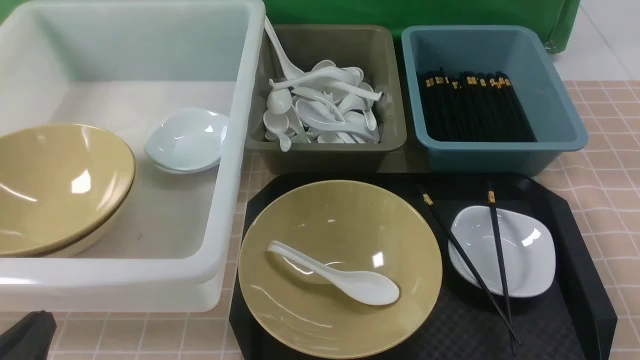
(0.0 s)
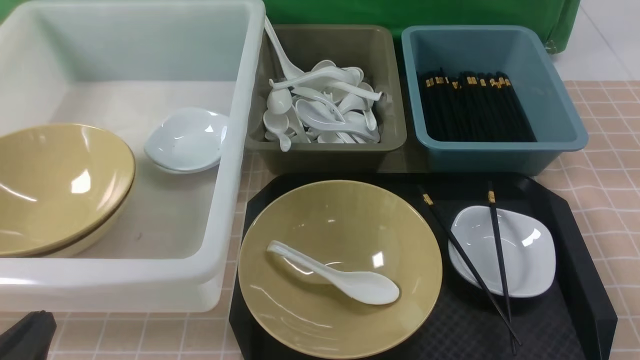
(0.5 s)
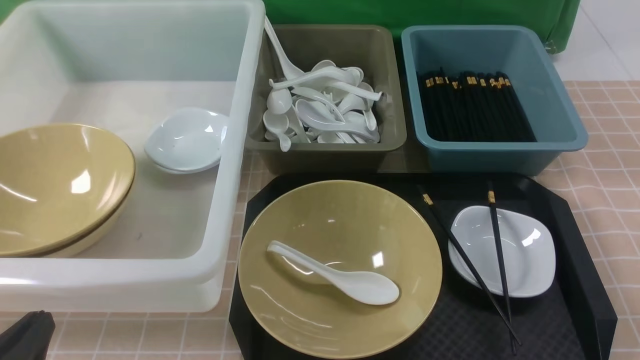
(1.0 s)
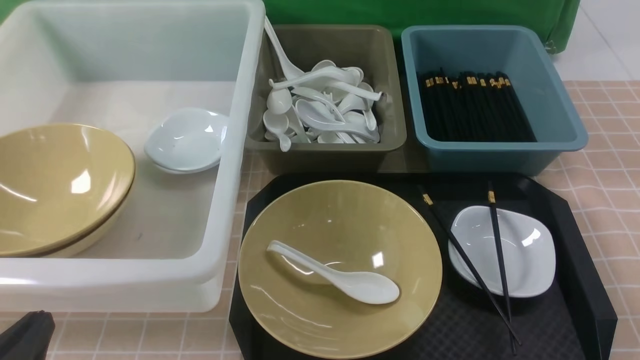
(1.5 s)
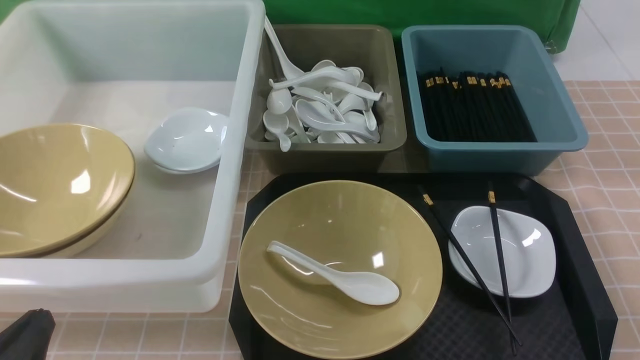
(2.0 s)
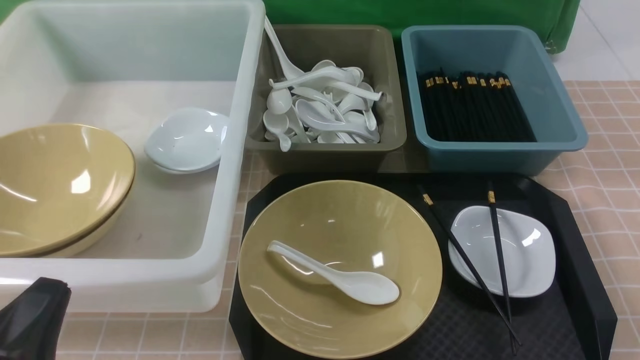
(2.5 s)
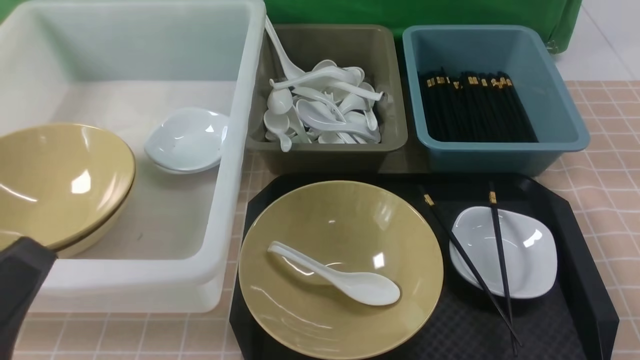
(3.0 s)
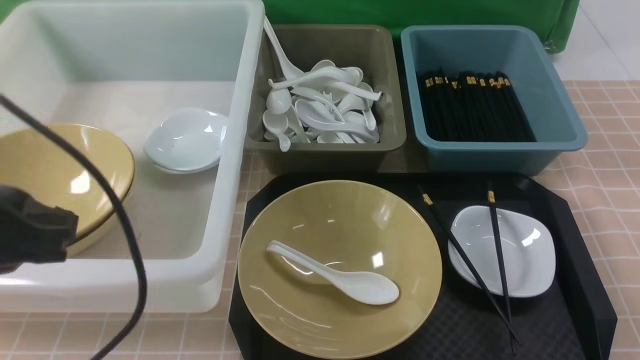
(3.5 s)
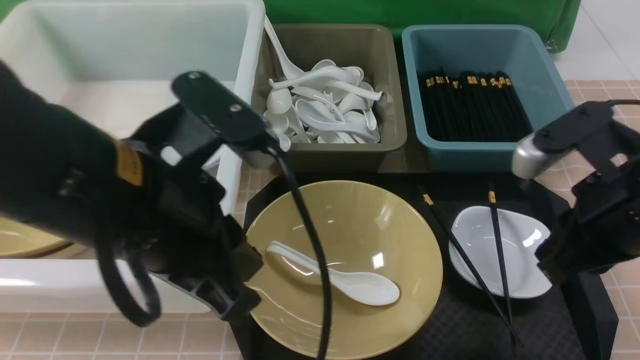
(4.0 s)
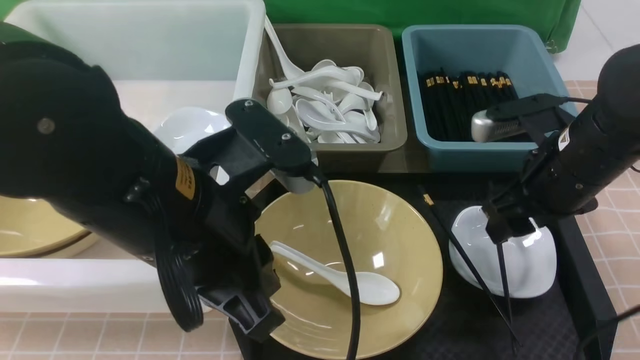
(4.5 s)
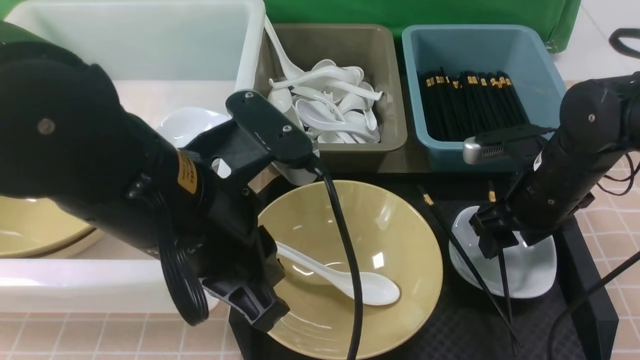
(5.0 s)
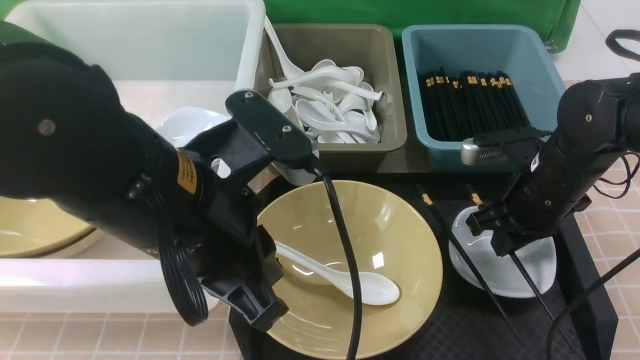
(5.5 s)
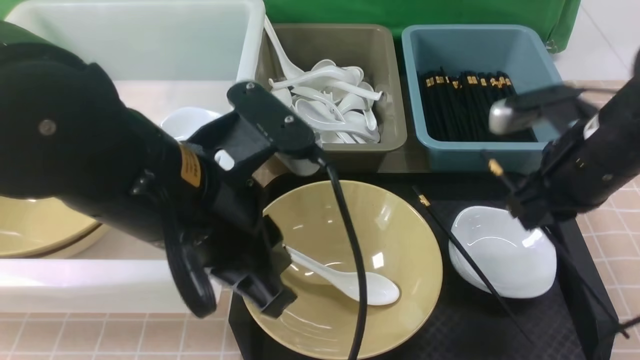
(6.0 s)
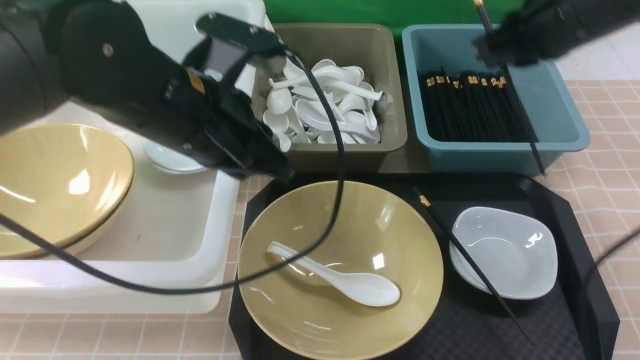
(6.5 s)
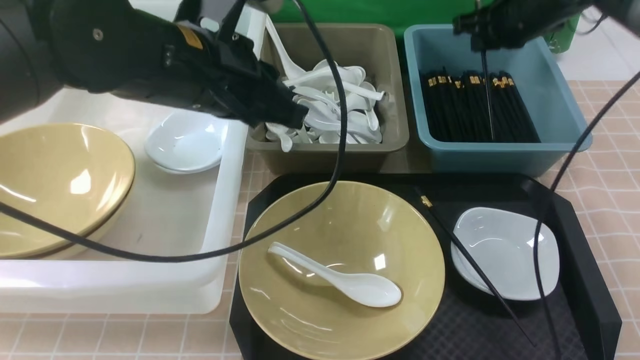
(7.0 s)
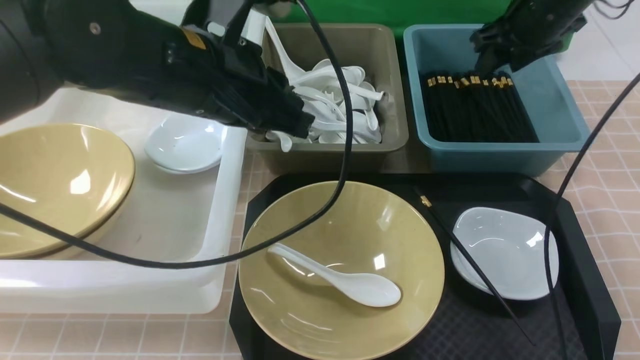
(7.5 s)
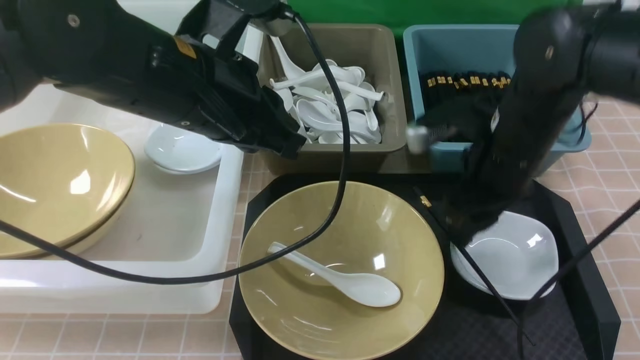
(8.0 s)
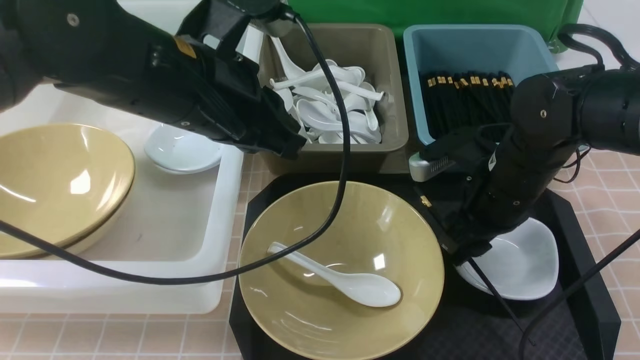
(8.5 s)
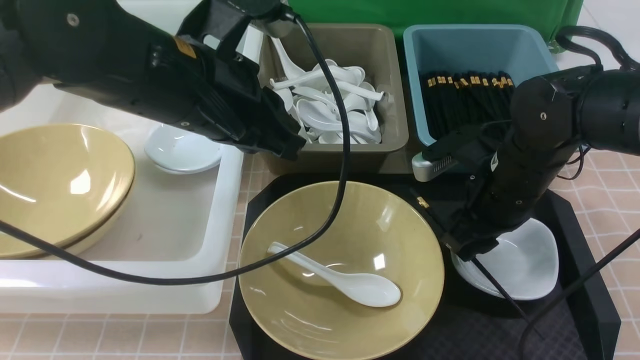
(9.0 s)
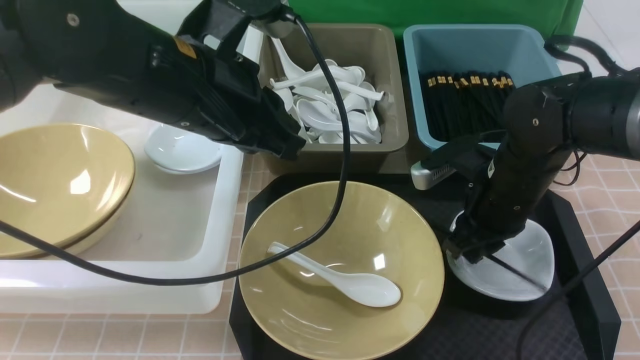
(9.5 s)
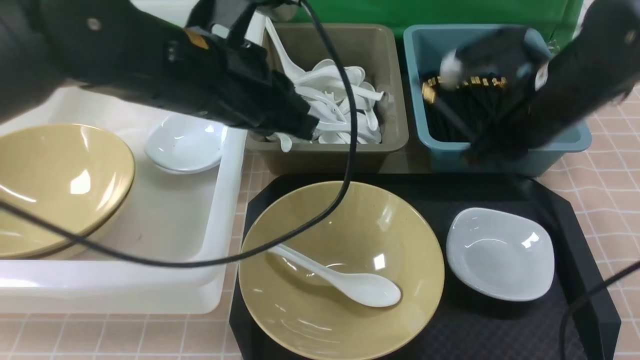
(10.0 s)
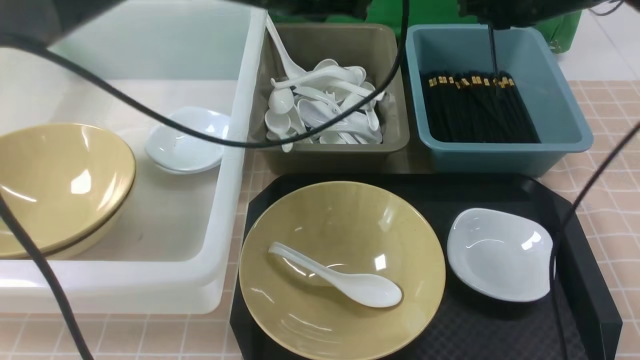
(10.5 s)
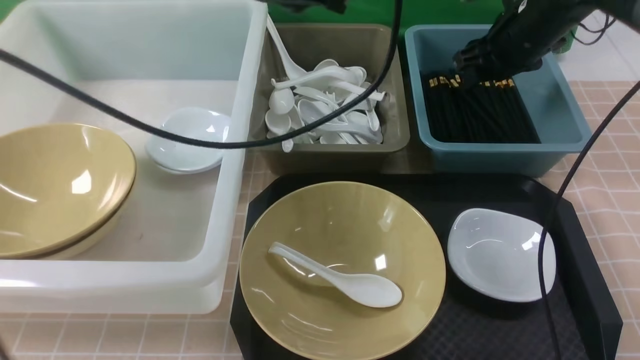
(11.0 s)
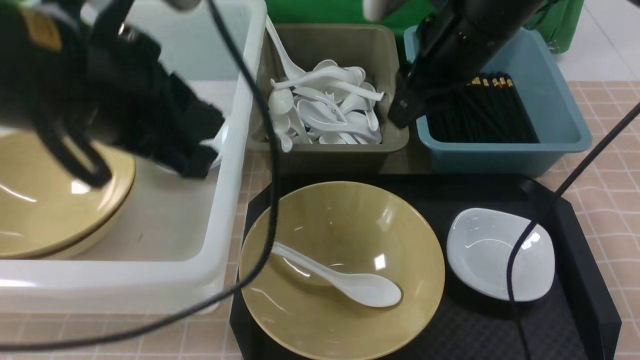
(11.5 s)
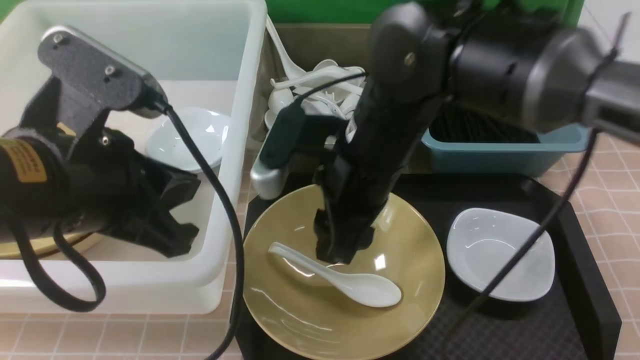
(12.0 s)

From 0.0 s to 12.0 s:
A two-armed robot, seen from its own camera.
Task of the whole recording: on brown table put chopsticks spoon bowls plates into blue grey white boxes.
Step, from 0.0 s to 5.5 s: use the right arm to grab a chopstick.
Step, from 6.0 s to 7.0 s: use the right arm to put a chopstick into the small storage box on the right.
Step, from 8.0 s to 9.5 s: use the right arm to grab a chopstick.
Step, from 10.0 s to 10.5 s: use the right arm to put a chopstick into the small storage box on the right.
From 2.0 s to 4.0 s: The left gripper heads upward, to the right and forward, covering some 25 cm. Meanwhile the right gripper goes roughly 20 cm forward, upward and to the left.
From 4.0 s to 6.0 s: The right gripper moves forward, approximately 5 cm, reaches roughly 10 cm downward, then returns, and opens, then closes once more.
From 6.0 s to 8.0 s: The left gripper shifts roughly 10 cm forward. Meanwhile the right gripper moves to the left, some 5 cm, reaches some 20 cm forward, then returns, and opens up.
From 8.0 s to 10.0 s: The right gripper travels upward by some 5 cm, and closes up.
From 10.0 s to 12.0 s: The left gripper is displaced backward and to the left by some 15 cm. Meanwhile the right gripper shifts about 15 cm to the left, and opens up.

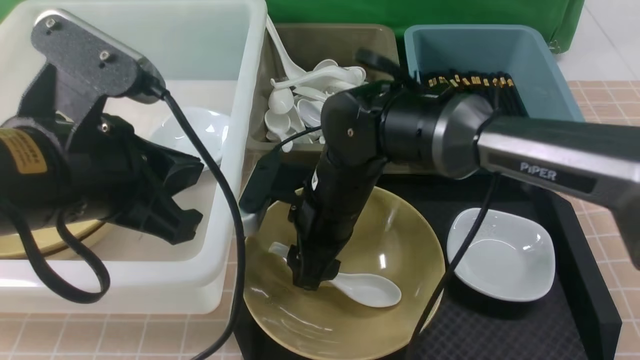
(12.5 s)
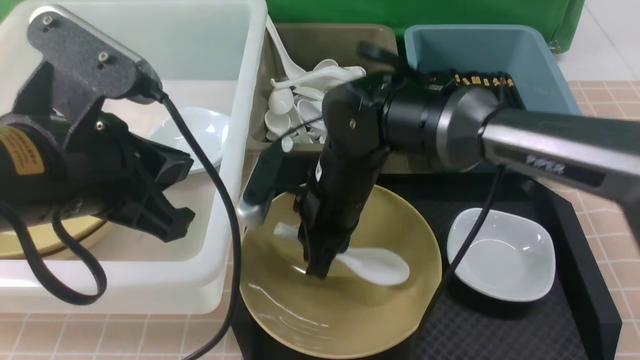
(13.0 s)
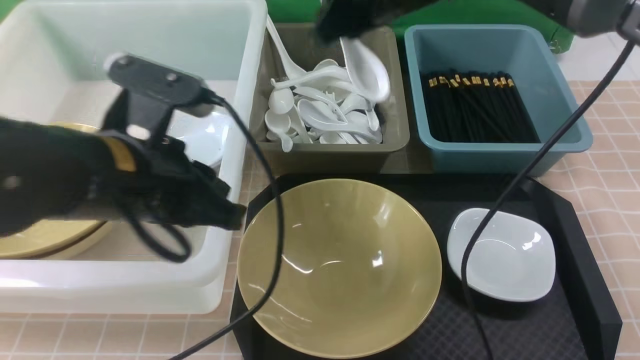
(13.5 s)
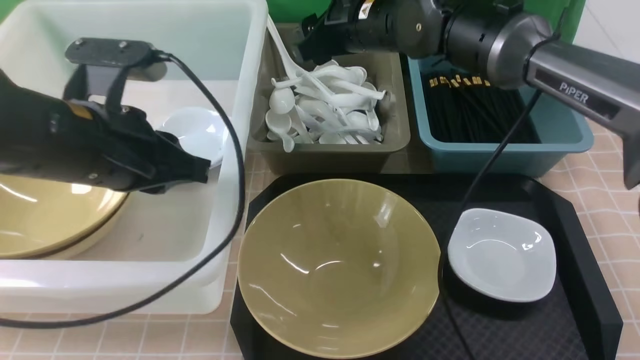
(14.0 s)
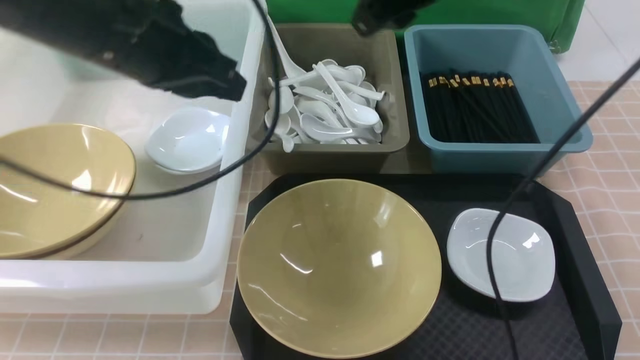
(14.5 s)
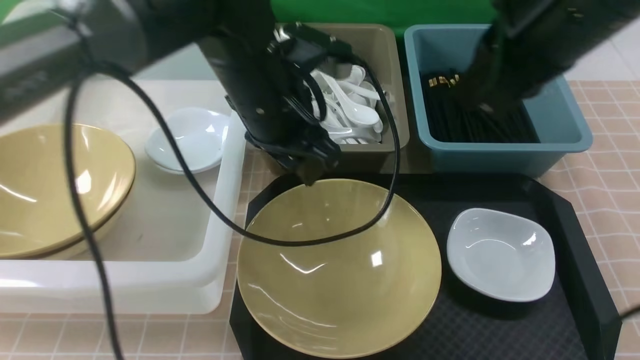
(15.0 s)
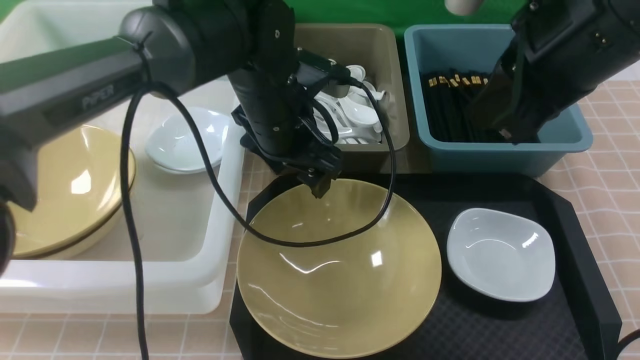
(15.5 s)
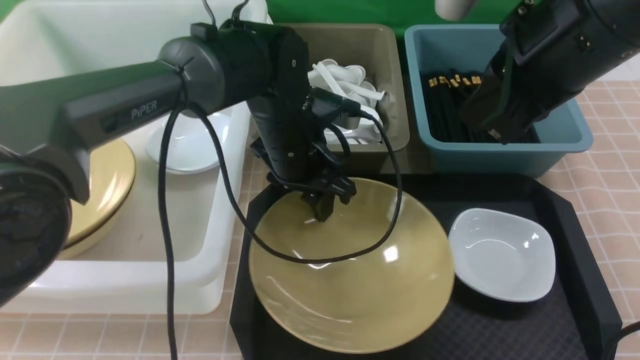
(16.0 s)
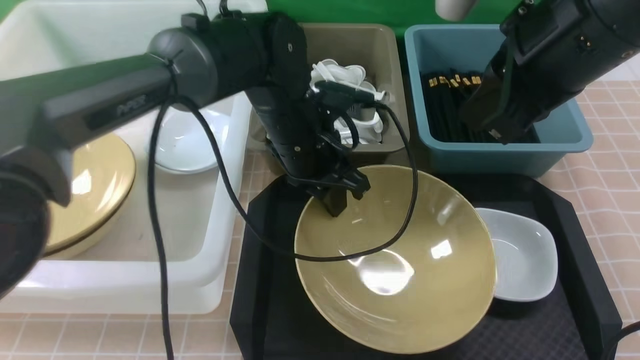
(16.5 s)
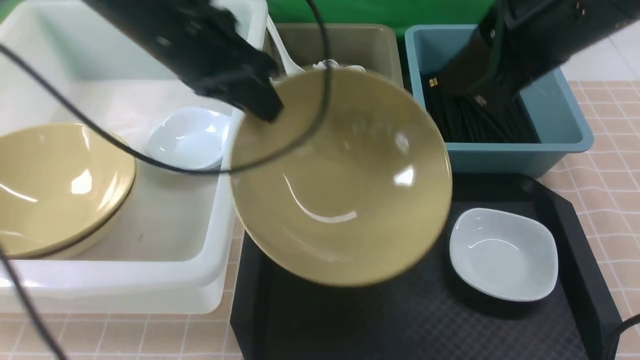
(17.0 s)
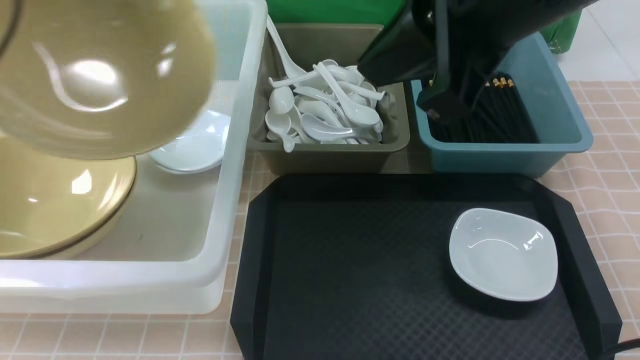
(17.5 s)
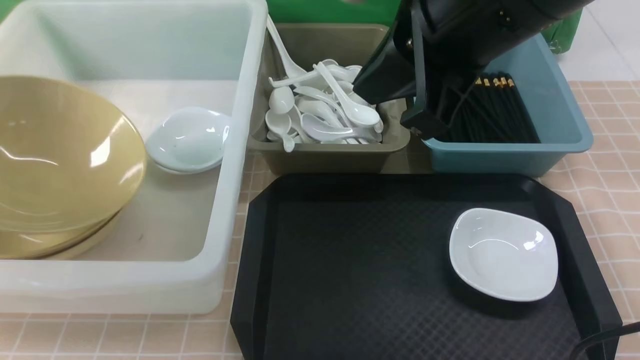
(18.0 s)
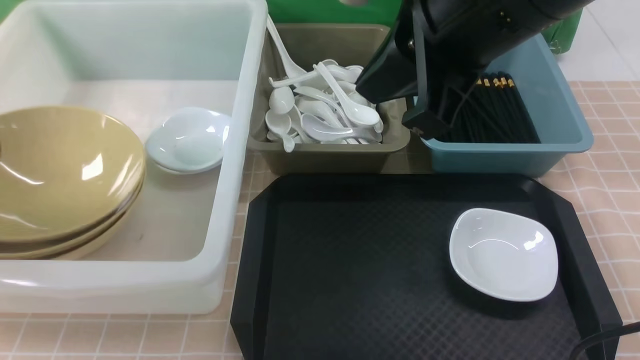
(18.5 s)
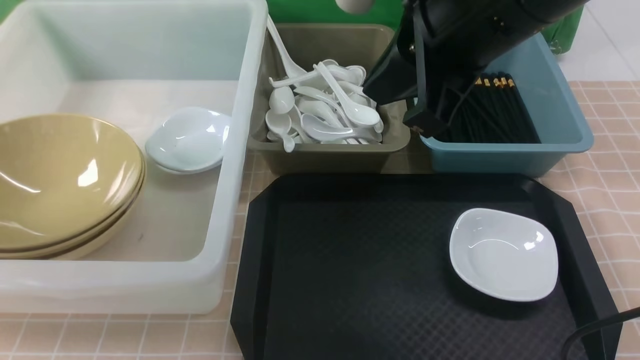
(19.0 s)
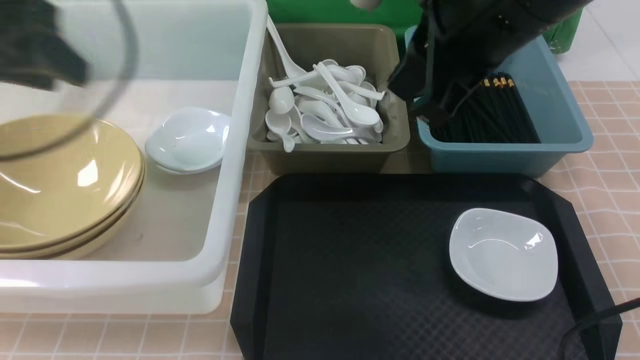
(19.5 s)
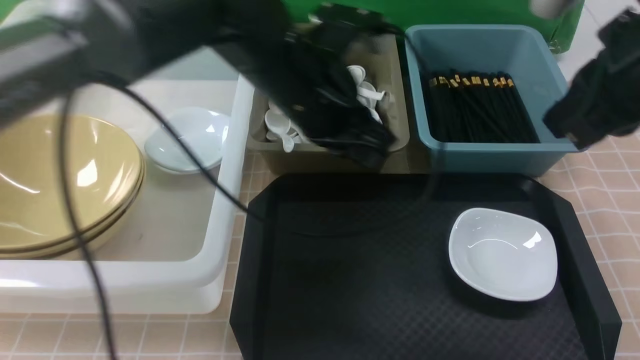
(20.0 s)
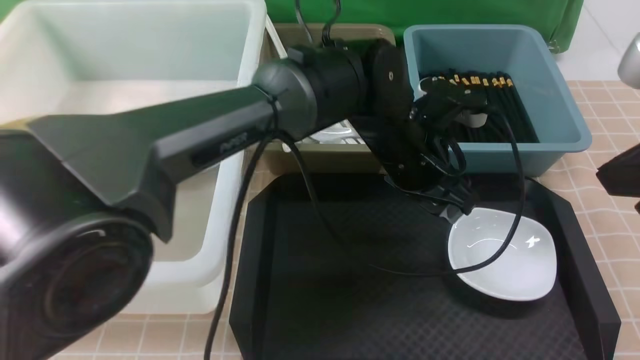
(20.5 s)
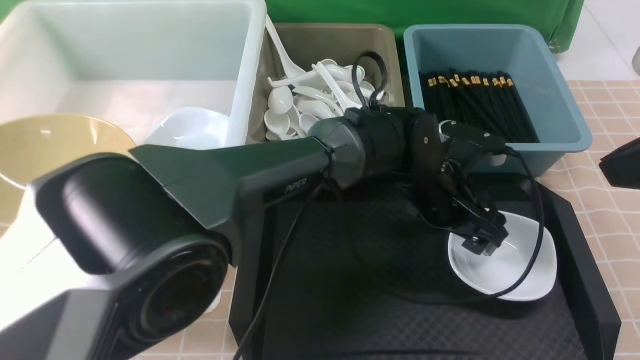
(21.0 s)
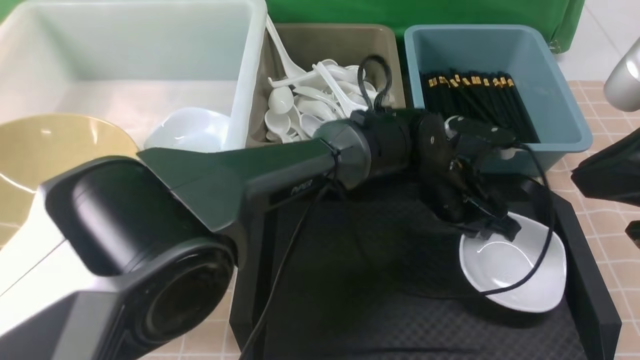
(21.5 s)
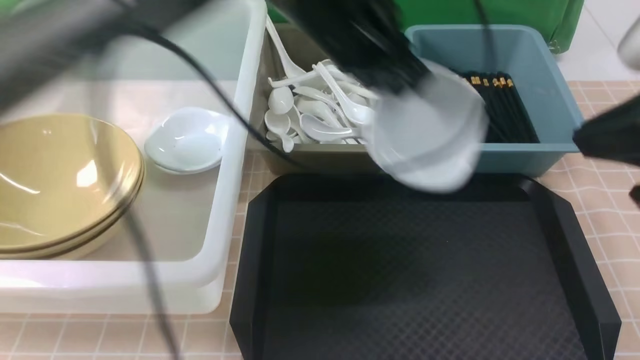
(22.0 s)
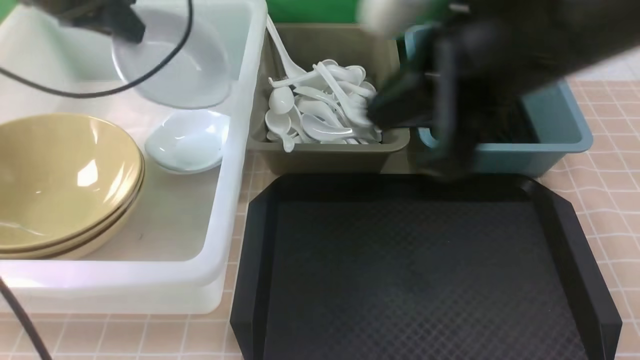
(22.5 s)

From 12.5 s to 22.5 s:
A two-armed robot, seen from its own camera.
Task of the whole recording: on brown table put chopsticks spoon bowls plates into blue grey white boxes.
Step, from 13.5 s to 14.0 s: use the right arm to put the soup spoon into the small storage box in the middle.
Step, from 14.5 s to 16.5 s: use the left arm to grab the yellow noodle bowl on the left.
Step, from 17.0 s to 19.0 s: use the left arm to put the noodle bowl into the large storage box on the left.
Step, from 19.5 s to 21.5 s: use the left arm to grab the plate.
From 12.5 s to 14.5 s: The right gripper is displaced upward and to the right by some 20 cm, and closes its fingers. The left gripper goes about 15 cm forward.
From 14.5 s to 16.5 s: The right gripper is displaced backward and to the right by about 15 cm, and closes; the left gripper is displaced downward, to the right and forward by about 15 cm, and opens and closes again.
From 16.5 s to 18.5 s: The left gripper moves to the left, about 40 cm, while the right gripper moves to the left, about 5 cm.
From 18.5 s to 20.5 s: The left gripper is displaced to the right by roughly 50 cm, and opens up, while the right gripper moves to the right and backward, about 15 cm.
From 20.5 s to 22.5 s: The left gripper travels to the left and upward by some 35 cm, and closes up. The right gripper heads to the left, covering some 15 cm.
